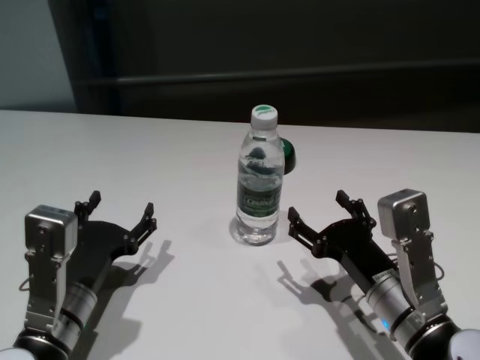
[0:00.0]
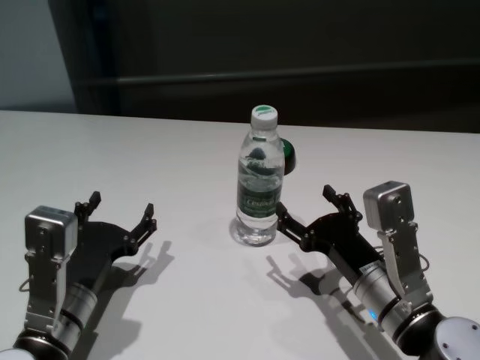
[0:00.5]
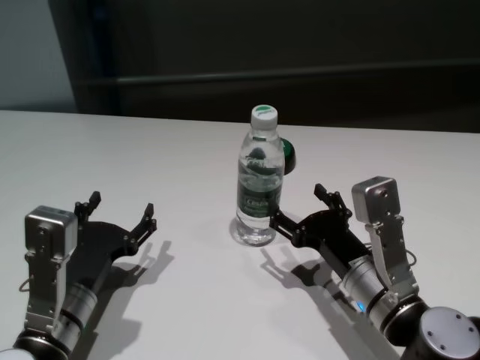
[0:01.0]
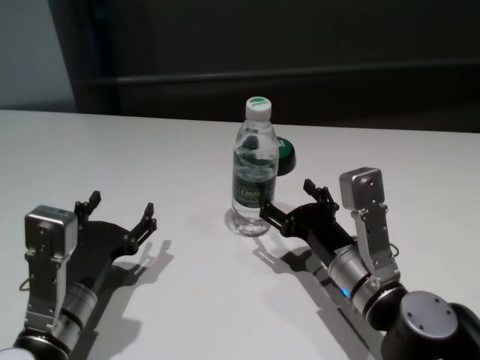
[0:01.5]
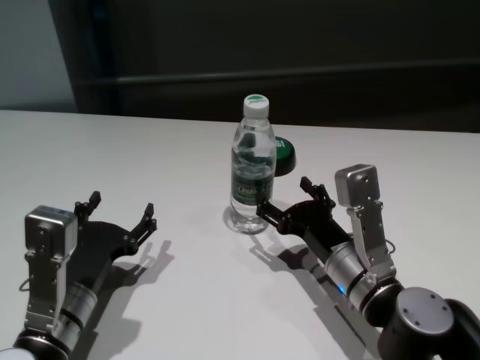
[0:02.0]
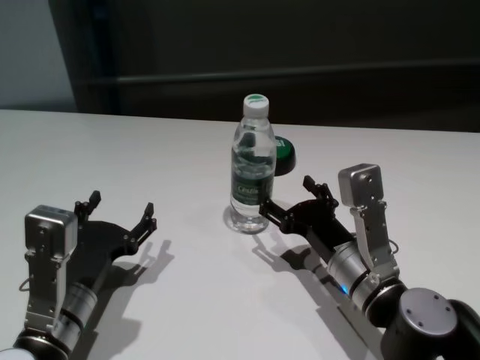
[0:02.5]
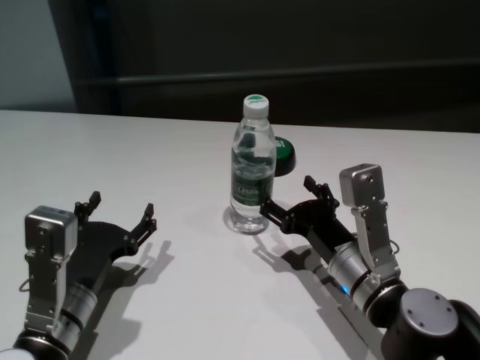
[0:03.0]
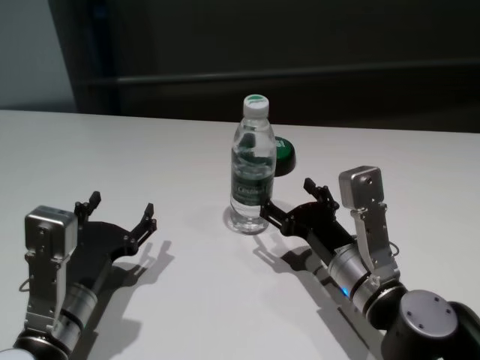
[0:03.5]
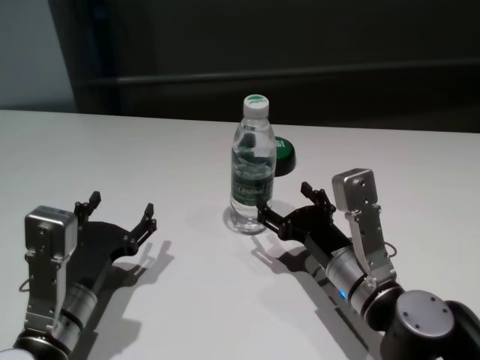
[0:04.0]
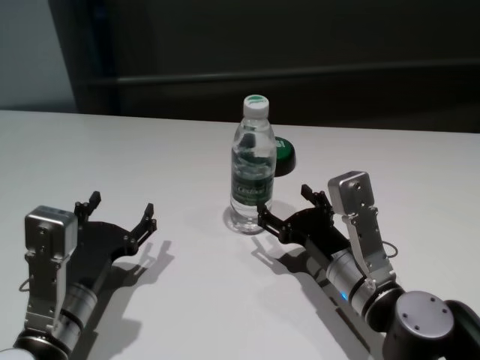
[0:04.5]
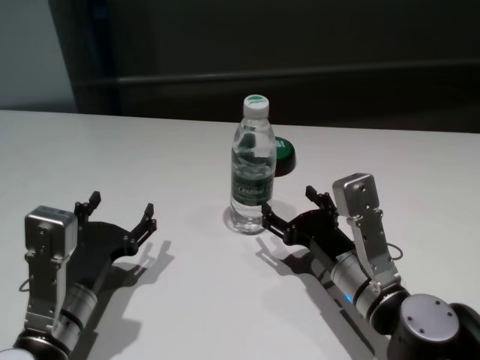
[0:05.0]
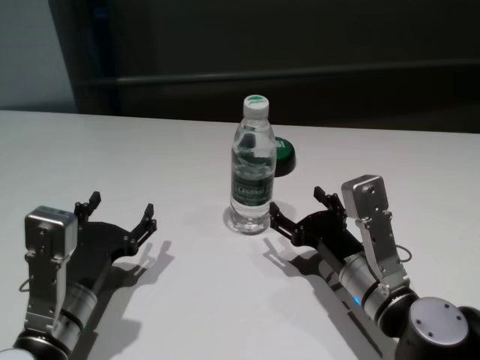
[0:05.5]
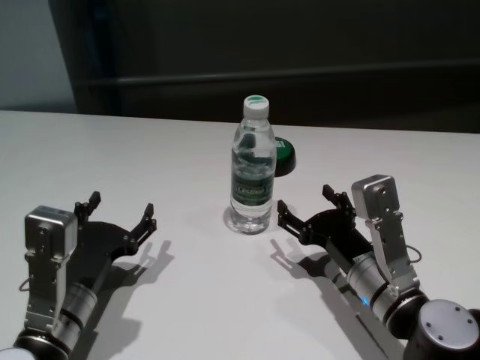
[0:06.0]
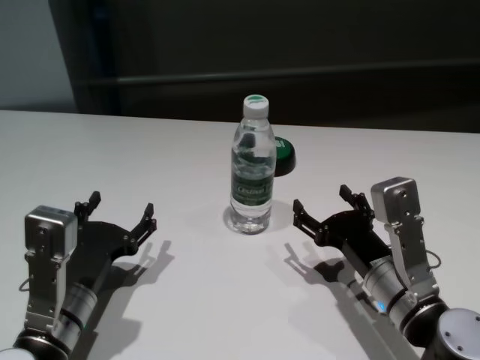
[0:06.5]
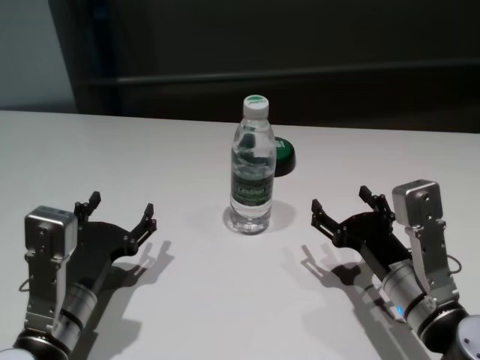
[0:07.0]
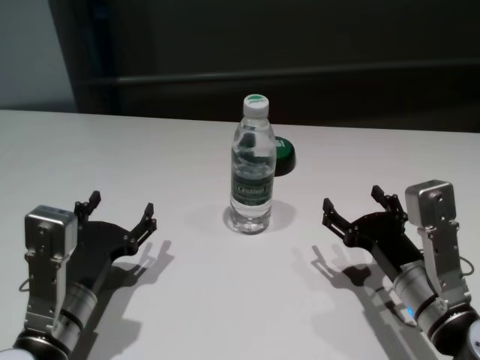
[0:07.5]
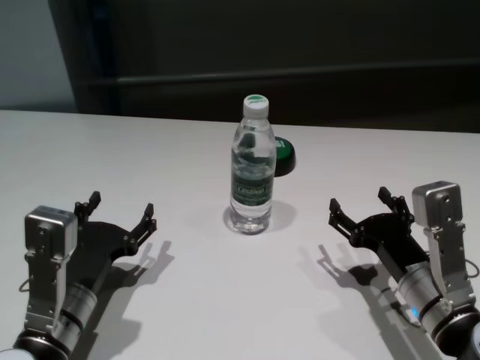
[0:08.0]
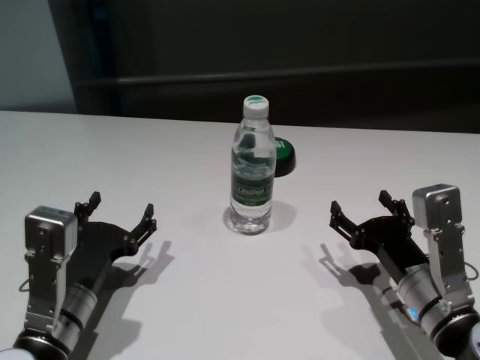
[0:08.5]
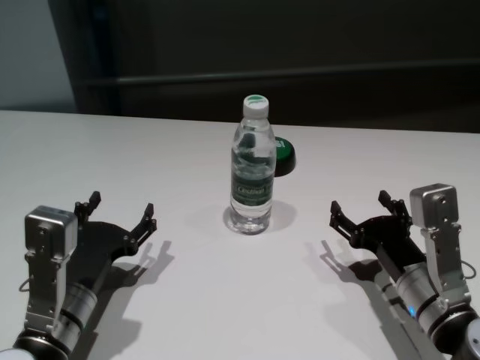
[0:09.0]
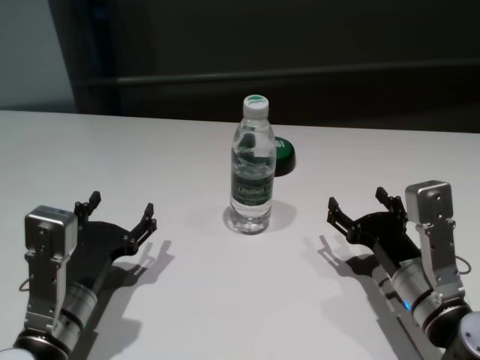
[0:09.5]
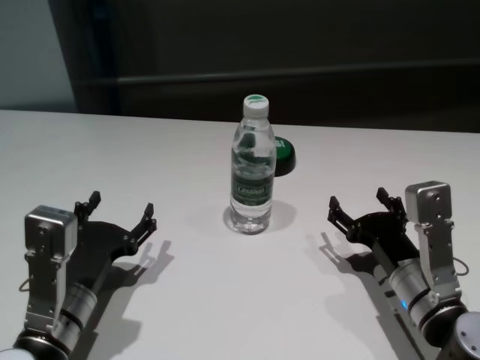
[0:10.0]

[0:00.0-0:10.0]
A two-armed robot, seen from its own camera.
Task of the whole recording: return to a safe position after touching an obstacle with your arm on the white table.
Step, 0:00.0 to 0:05.5: Touch the bottle with right gripper.
